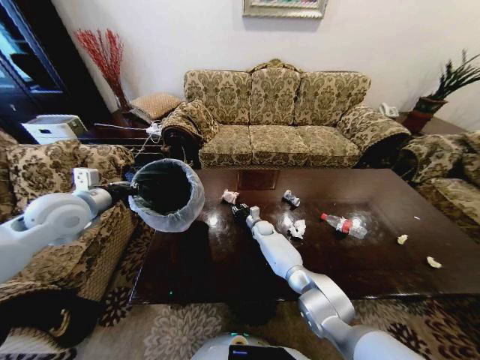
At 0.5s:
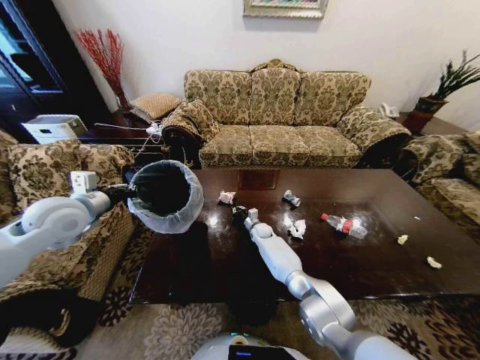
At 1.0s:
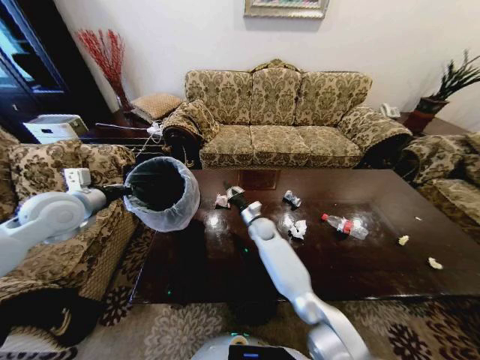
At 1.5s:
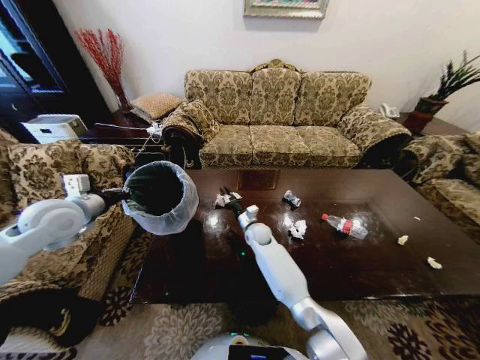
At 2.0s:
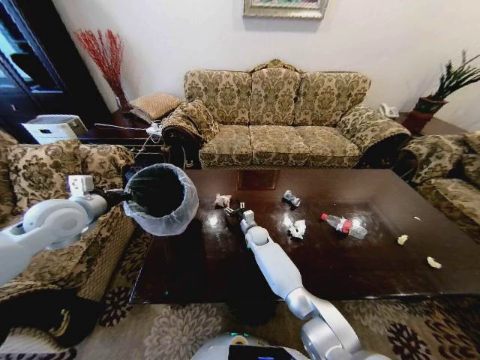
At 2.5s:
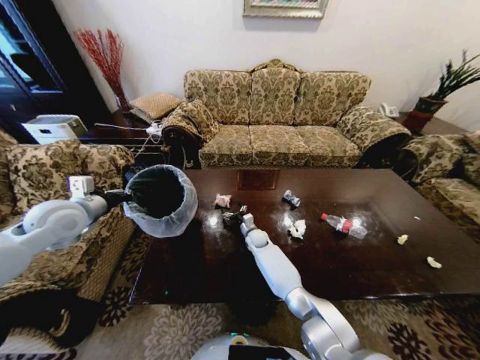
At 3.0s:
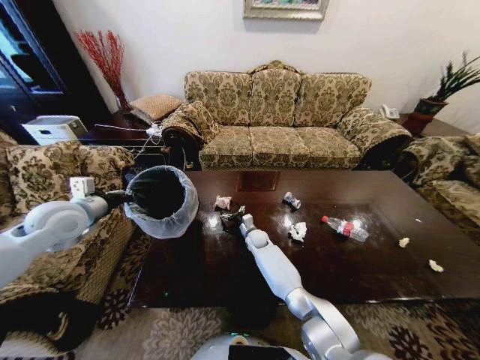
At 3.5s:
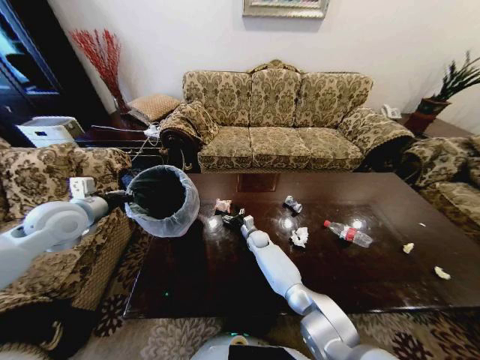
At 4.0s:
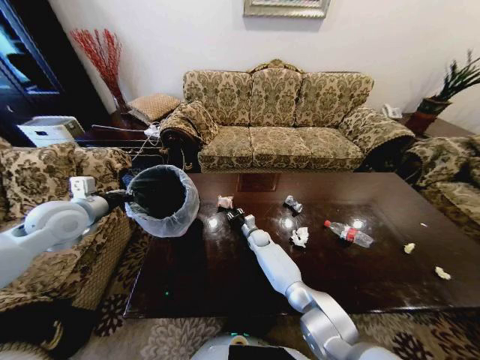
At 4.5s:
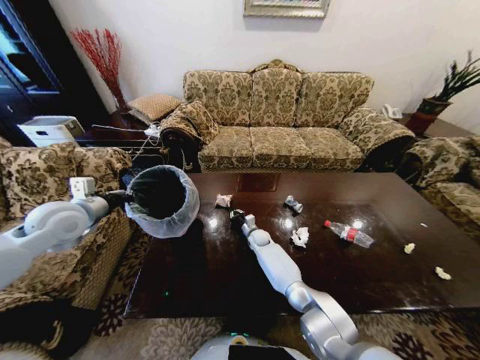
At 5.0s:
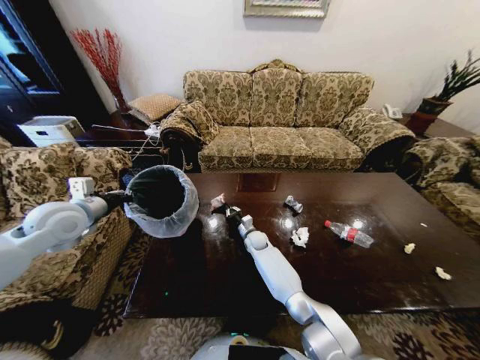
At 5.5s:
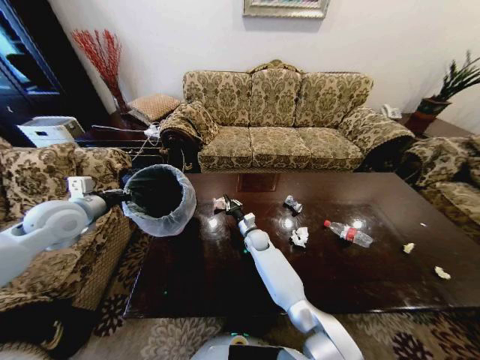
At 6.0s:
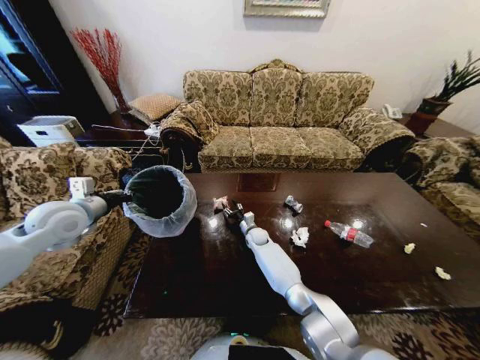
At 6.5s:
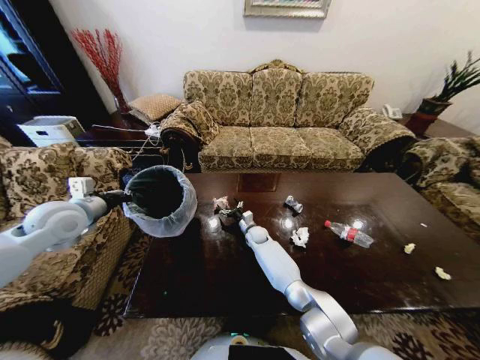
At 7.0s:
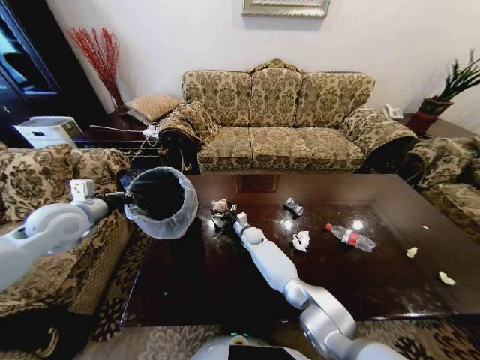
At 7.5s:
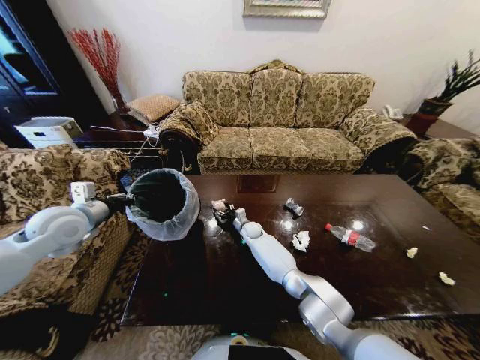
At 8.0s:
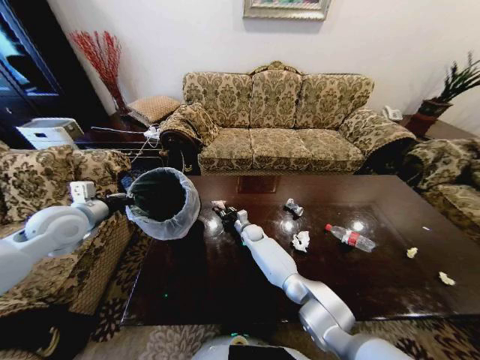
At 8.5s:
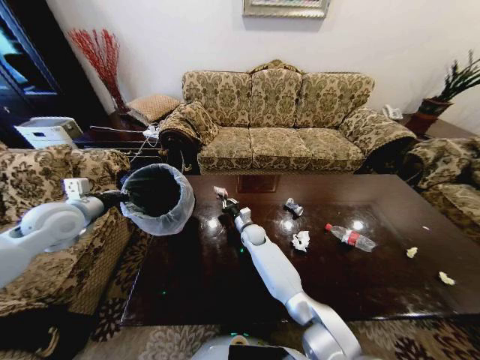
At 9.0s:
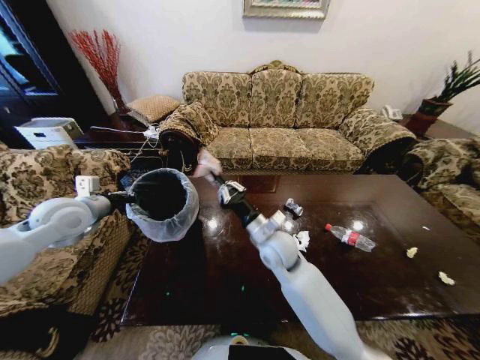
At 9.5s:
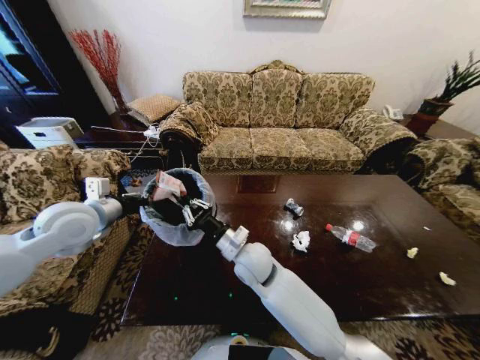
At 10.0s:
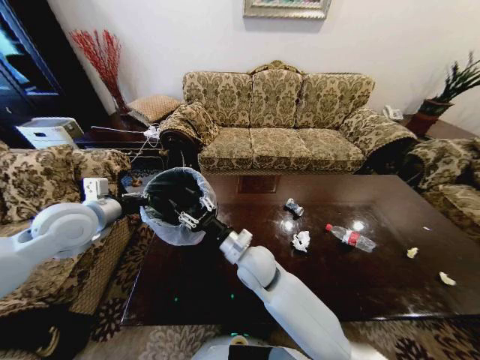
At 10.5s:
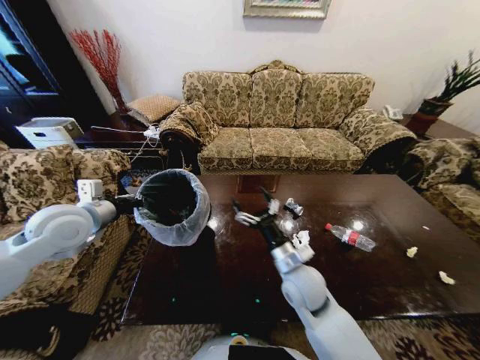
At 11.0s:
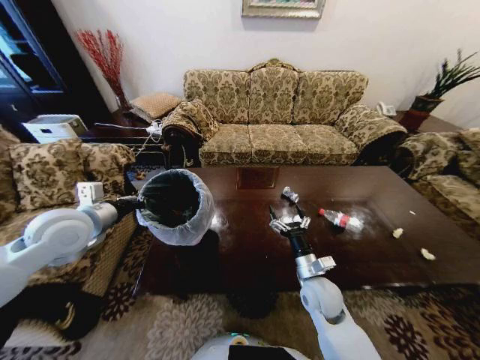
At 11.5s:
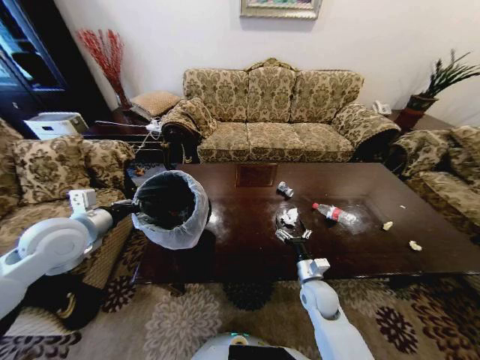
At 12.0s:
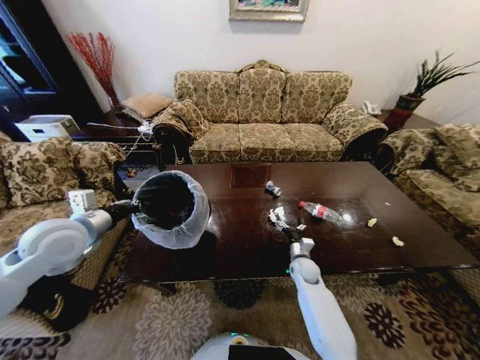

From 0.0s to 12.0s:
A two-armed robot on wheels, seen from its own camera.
Task of the whole recording: Move to the front of the table and place the trash on the table into the trash bin.
From 0.0s to 2.0s: The right gripper is displaced backward by approximately 5 cm, travels upward and back again, some 10 cm each way, and opens.
From 4.0s to 6.0s: The right gripper closes, then reopens.
From 6.0s to 8.0s: The right gripper opens and closes again.
From 8.0s to 10.0s: The right gripper heads backward and upward, covering about 30 cm; the left gripper shifts some 5 cm to the right.
From 10.0s to 12.0s: The right gripper goes some 30 cm downward, to the right and forward, and opens up.

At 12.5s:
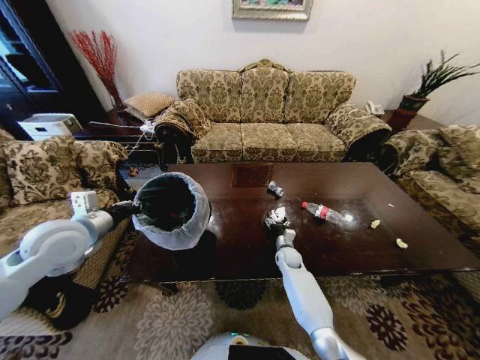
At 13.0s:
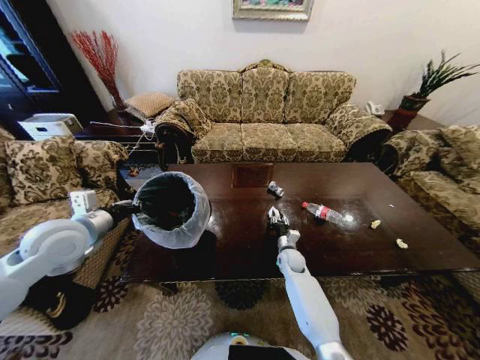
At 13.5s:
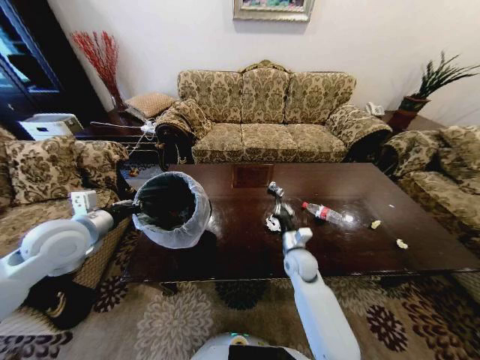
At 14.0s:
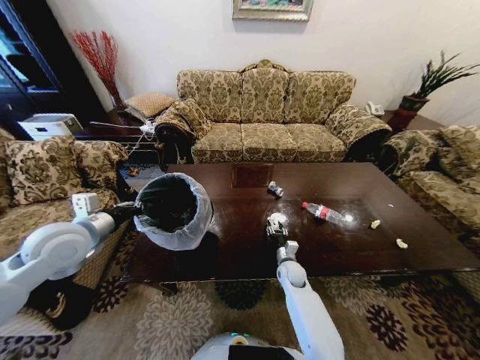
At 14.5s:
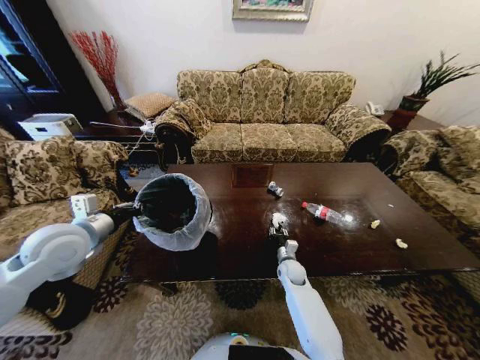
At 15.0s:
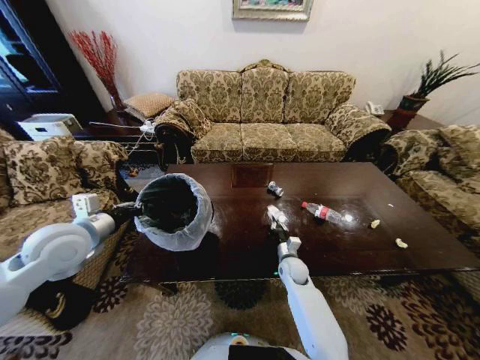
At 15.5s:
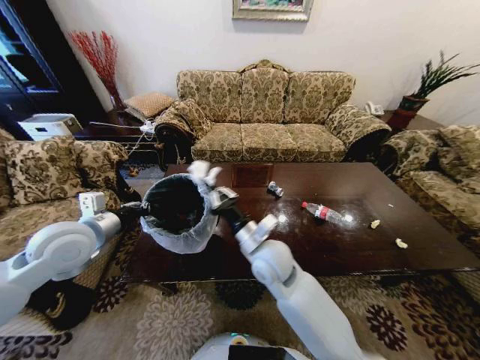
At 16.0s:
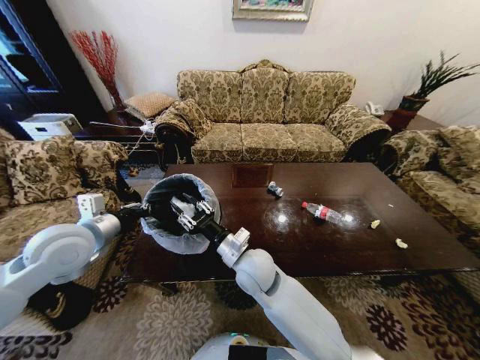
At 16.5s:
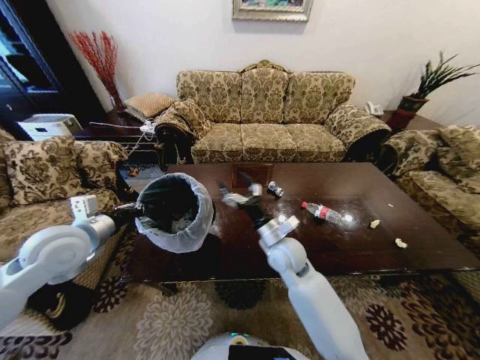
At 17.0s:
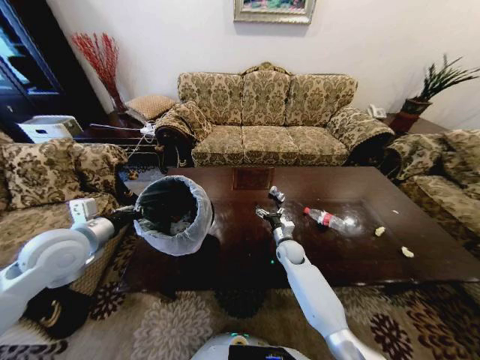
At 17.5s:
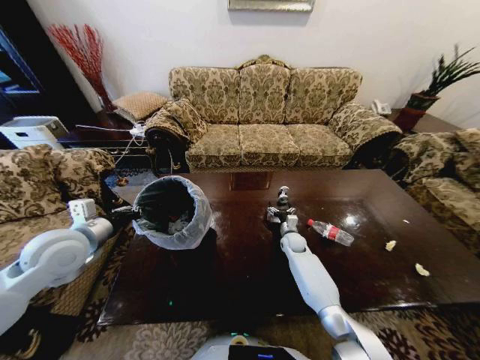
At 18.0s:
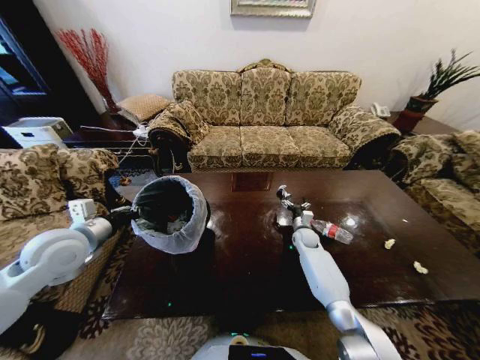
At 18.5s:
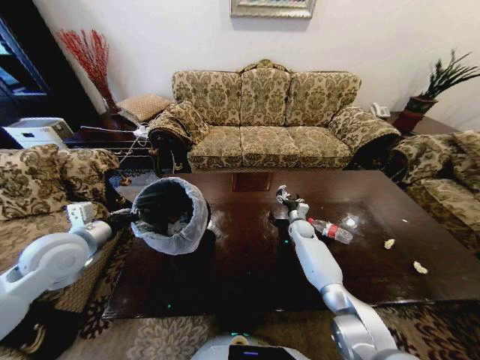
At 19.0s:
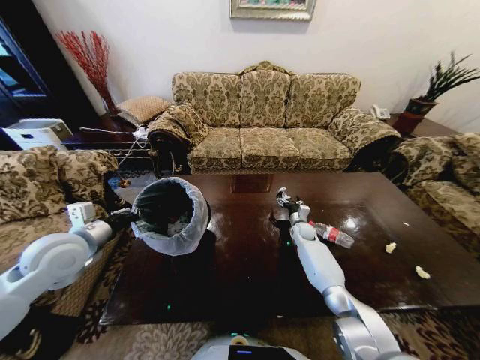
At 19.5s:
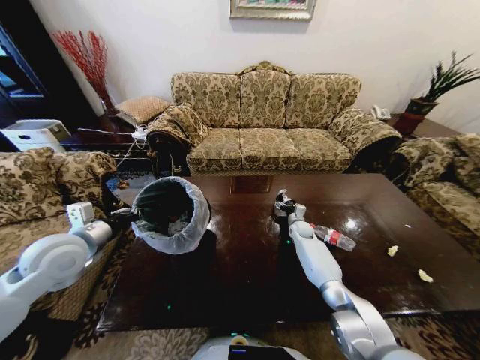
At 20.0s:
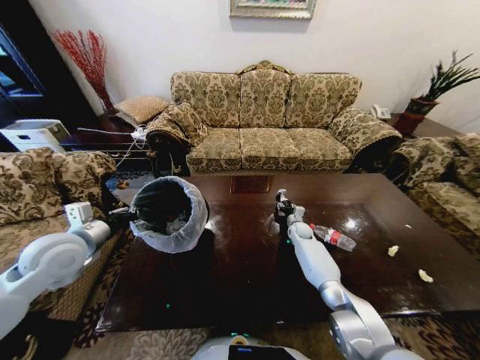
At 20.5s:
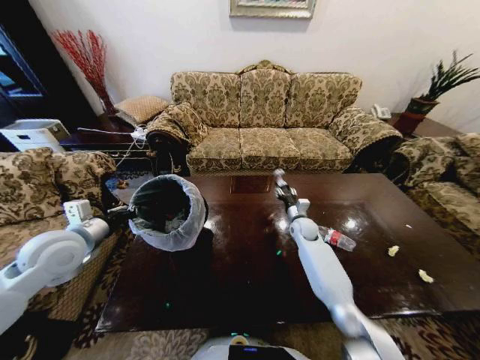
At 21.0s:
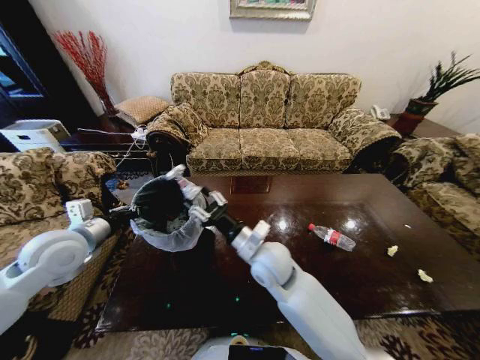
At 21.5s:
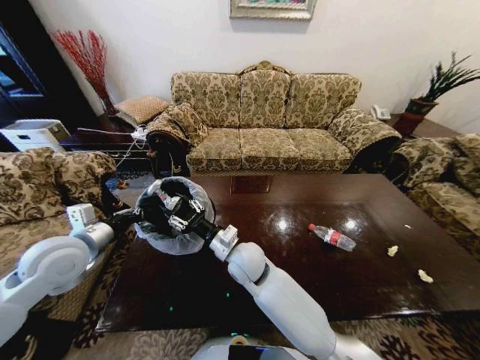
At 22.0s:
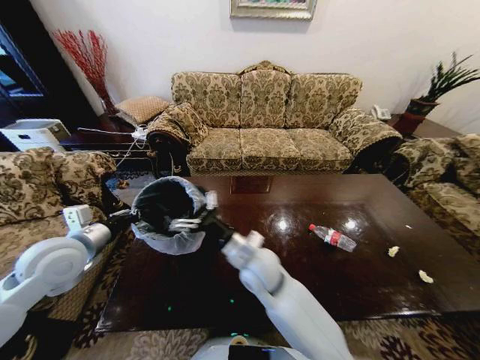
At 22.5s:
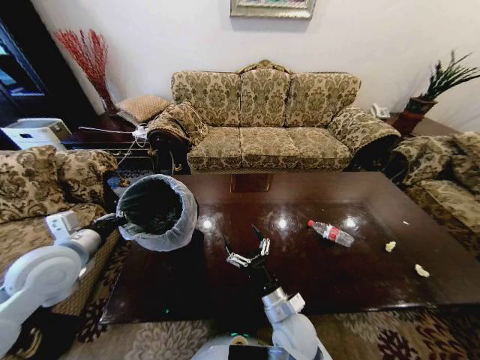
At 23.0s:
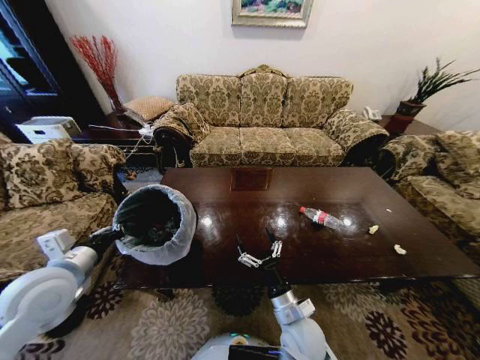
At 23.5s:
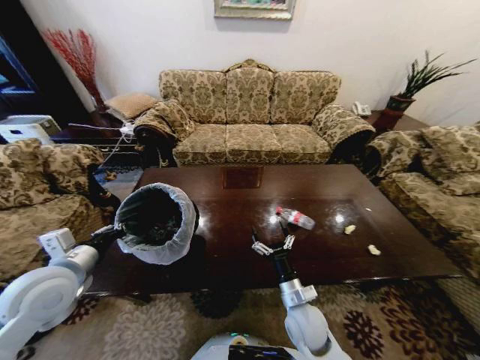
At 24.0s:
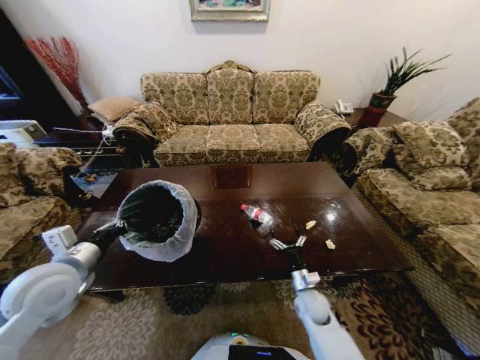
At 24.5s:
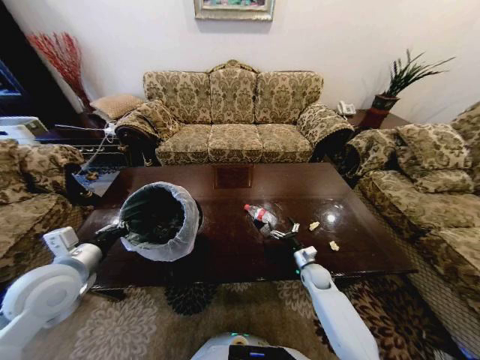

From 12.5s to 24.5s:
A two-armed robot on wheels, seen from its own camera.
Task of the whole recording: Move to the front of the table and place the trash on the table into the trash bin.
From 12.5s to 14.5s: The right gripper is displaced backward by about 5 cm, moves roughly 15 cm upward and comes back, and closes.
From 14.5s to 16.5s: The right gripper goes some 20 cm upward, and opens.
From 16.5s to 18.5s: The right gripper travels forward, downward and to the right by some 30 cm.
From 18.5s to 20.5s: The right gripper heads upward, covering roughly 5 cm, and closes up.
From 20.5s to 22.5s: The right gripper heads backward, covering approximately 30 cm, and opens up.
From 22.5s to 24.5s: The right gripper shifts some 30 cm forward, to the right and downward.

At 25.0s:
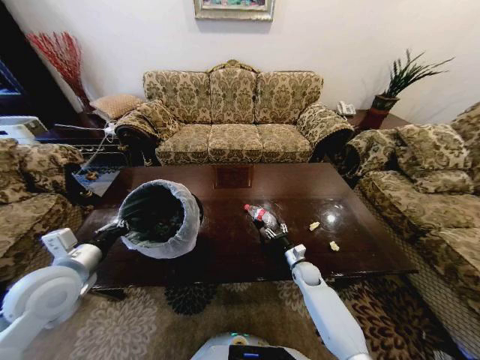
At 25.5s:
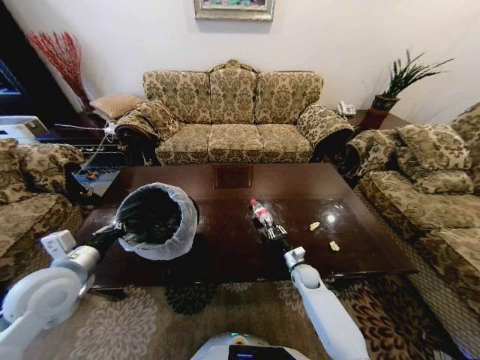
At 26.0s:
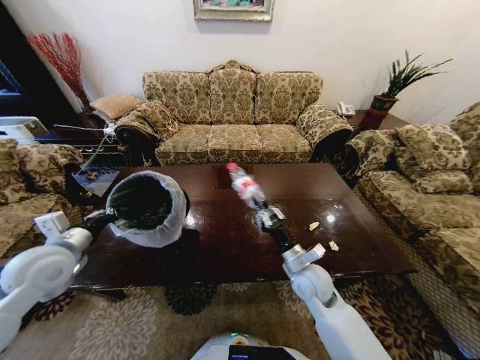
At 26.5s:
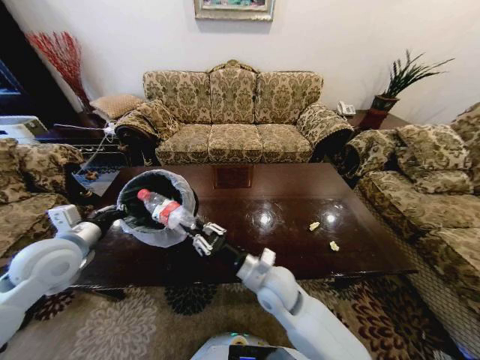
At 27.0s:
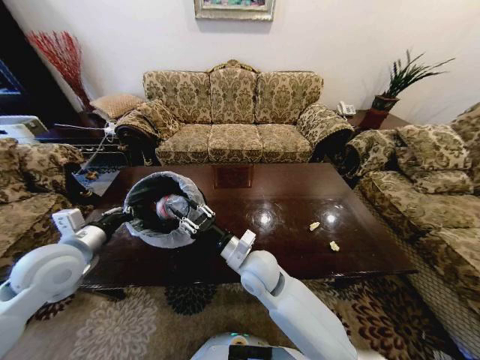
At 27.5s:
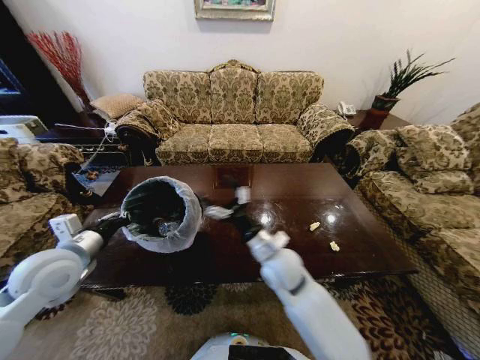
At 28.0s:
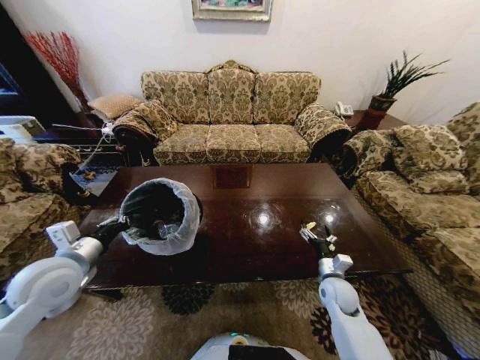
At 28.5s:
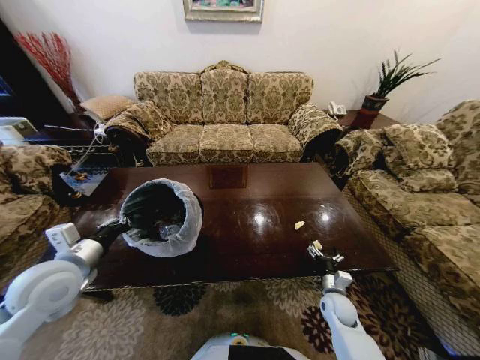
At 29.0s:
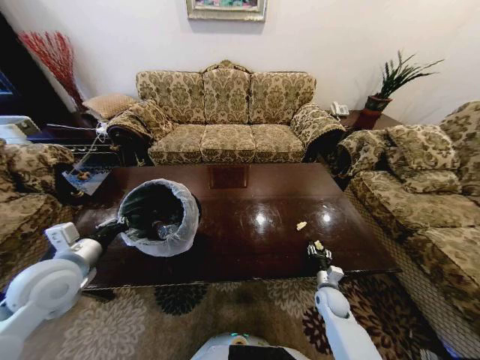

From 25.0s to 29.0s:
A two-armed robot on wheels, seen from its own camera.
Task of the whole recording: Move to the front of the table and place the trash on the table into the trash bin.
From 25.0s to 27.0s: The right gripper goes about 35 cm upward and to the left.
From 27.0s to 29.0s: The right gripper shifts about 40 cm to the right and downward, and opens, then closes once more.
